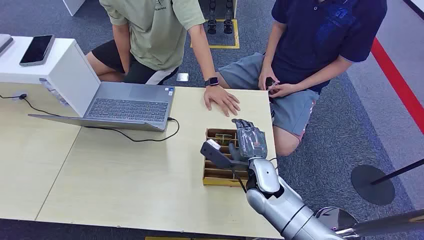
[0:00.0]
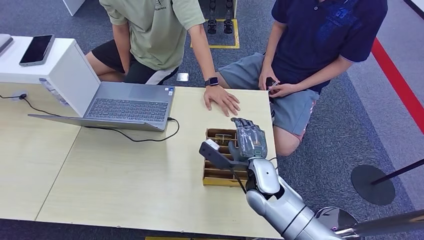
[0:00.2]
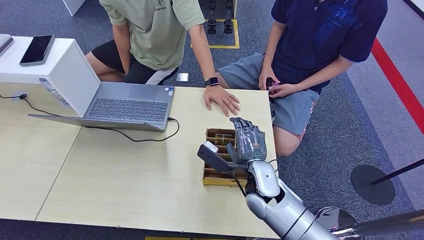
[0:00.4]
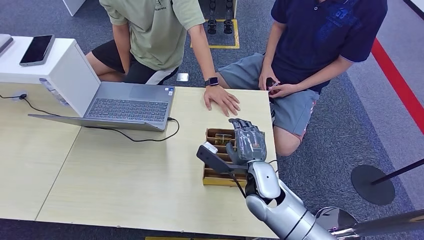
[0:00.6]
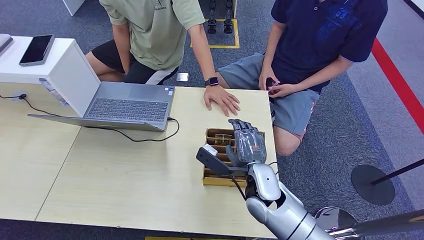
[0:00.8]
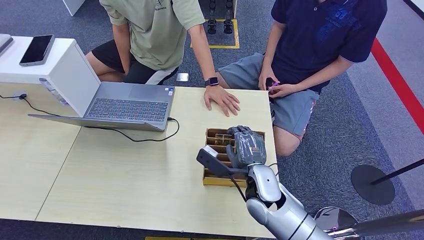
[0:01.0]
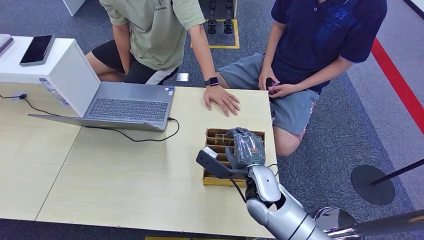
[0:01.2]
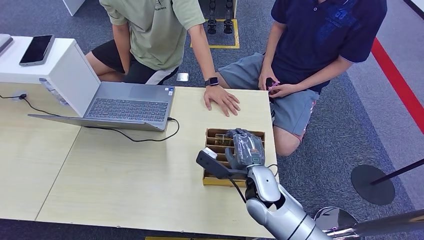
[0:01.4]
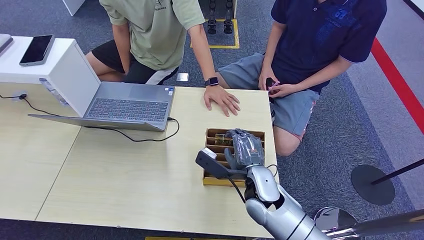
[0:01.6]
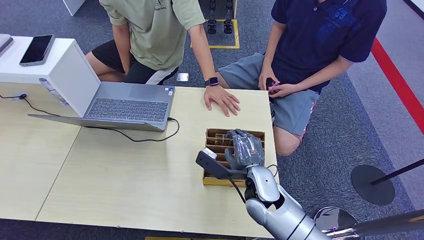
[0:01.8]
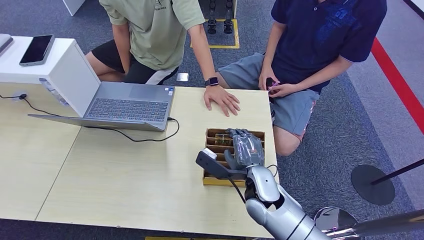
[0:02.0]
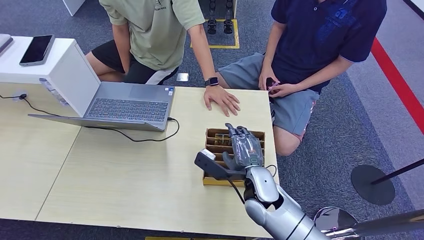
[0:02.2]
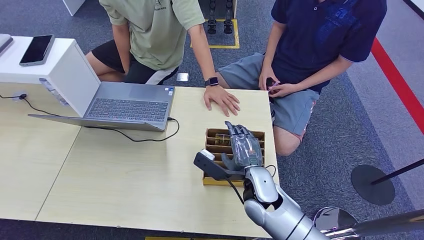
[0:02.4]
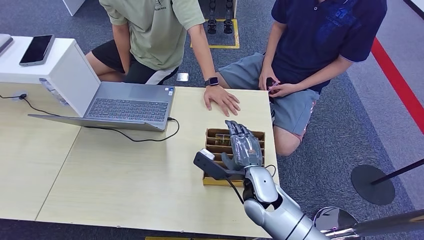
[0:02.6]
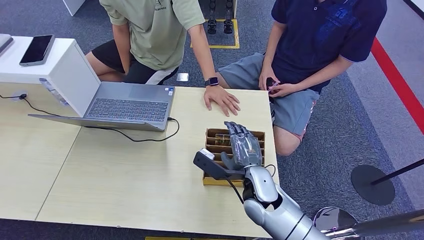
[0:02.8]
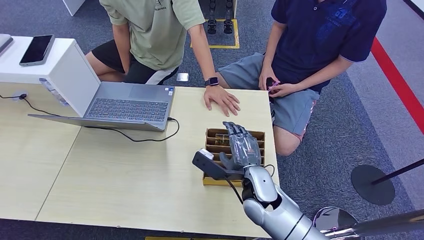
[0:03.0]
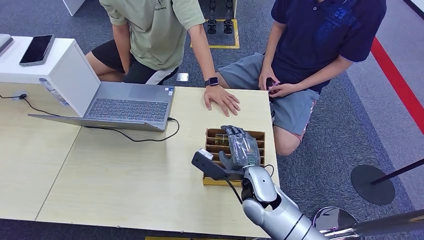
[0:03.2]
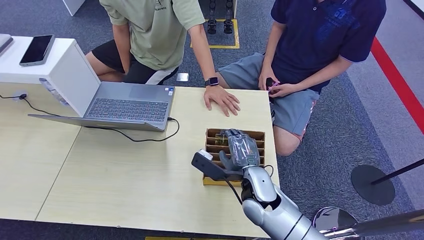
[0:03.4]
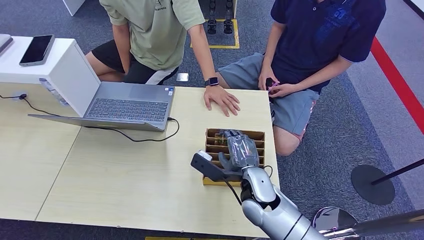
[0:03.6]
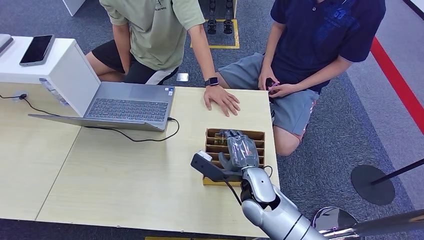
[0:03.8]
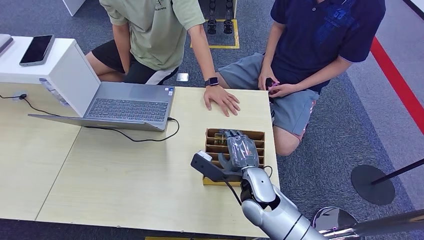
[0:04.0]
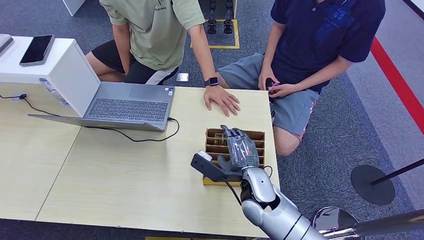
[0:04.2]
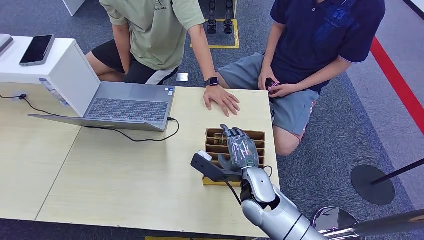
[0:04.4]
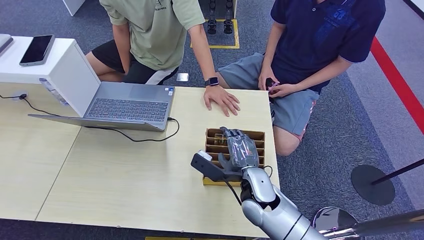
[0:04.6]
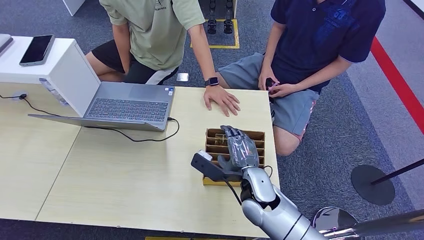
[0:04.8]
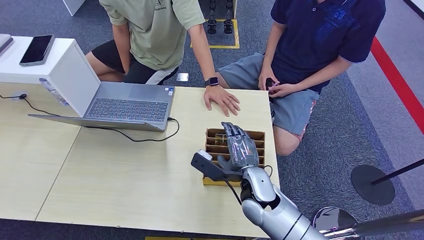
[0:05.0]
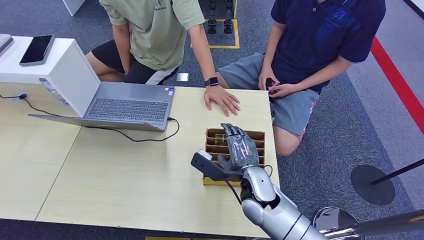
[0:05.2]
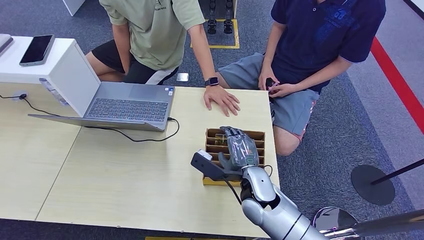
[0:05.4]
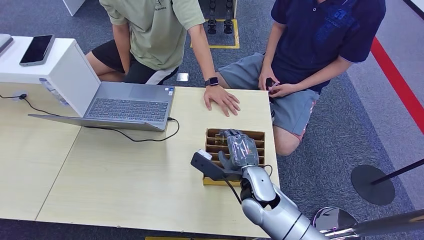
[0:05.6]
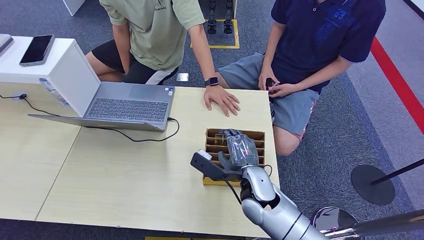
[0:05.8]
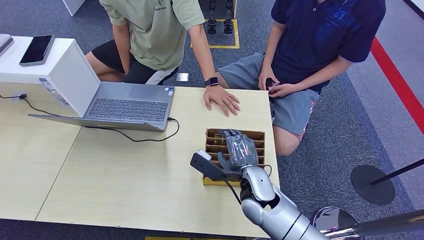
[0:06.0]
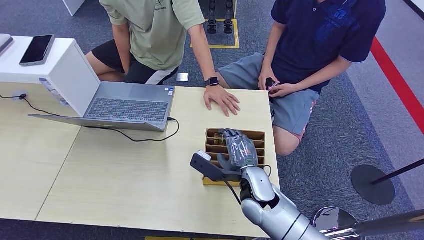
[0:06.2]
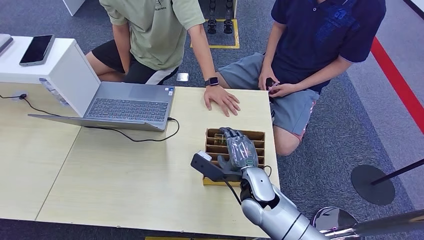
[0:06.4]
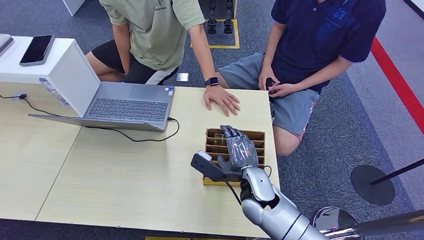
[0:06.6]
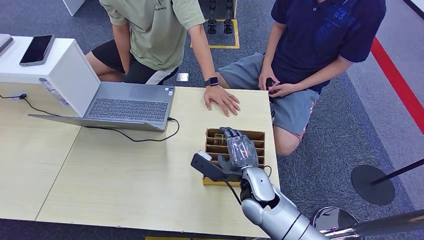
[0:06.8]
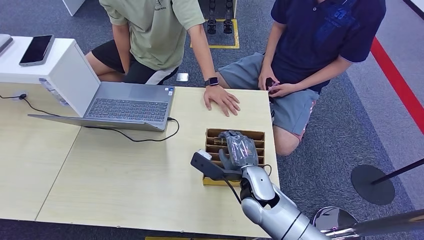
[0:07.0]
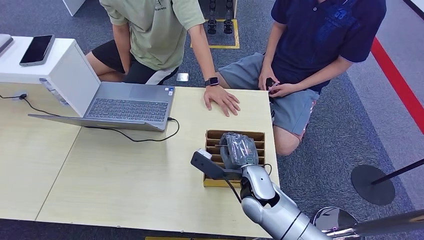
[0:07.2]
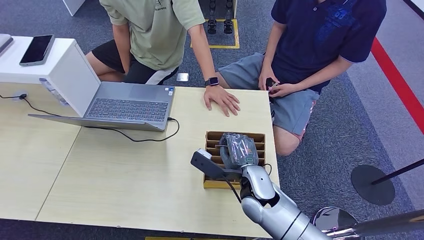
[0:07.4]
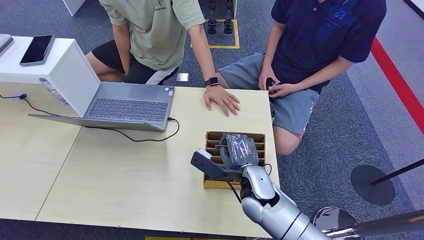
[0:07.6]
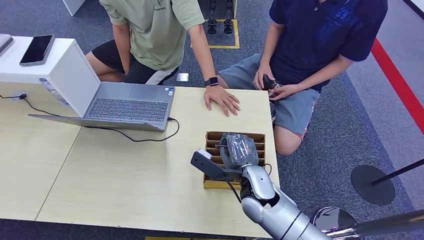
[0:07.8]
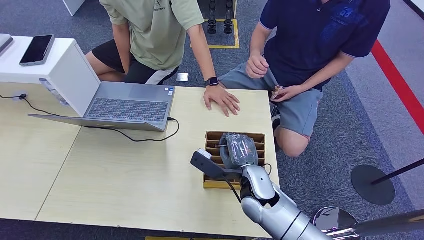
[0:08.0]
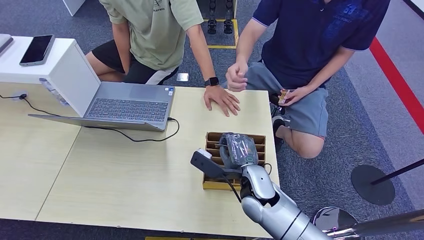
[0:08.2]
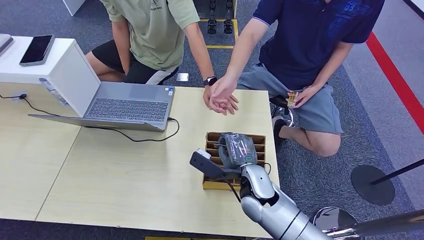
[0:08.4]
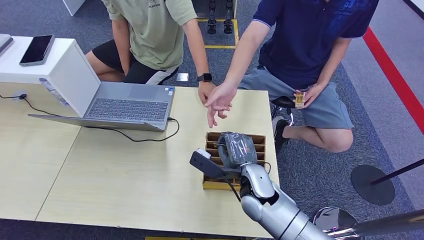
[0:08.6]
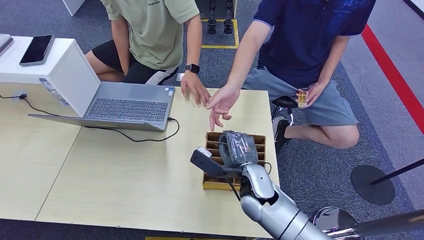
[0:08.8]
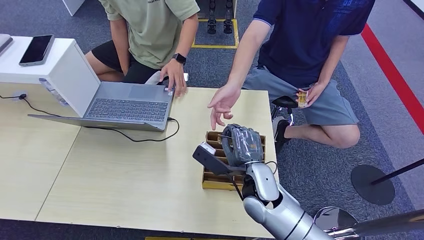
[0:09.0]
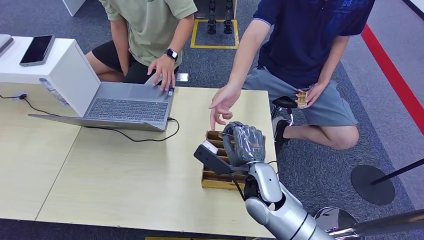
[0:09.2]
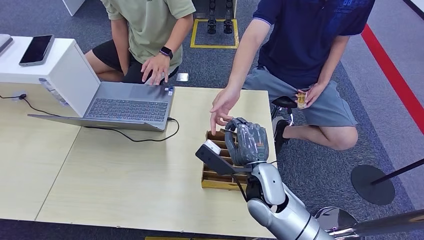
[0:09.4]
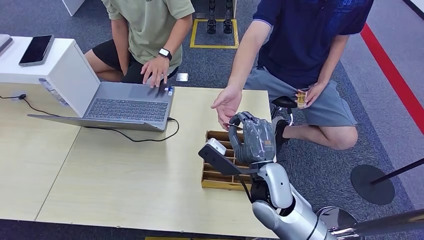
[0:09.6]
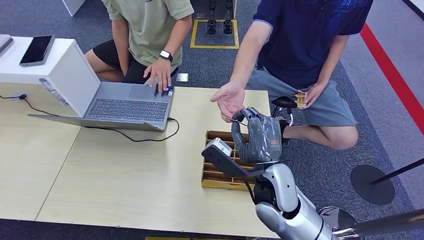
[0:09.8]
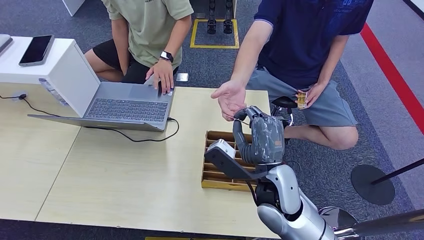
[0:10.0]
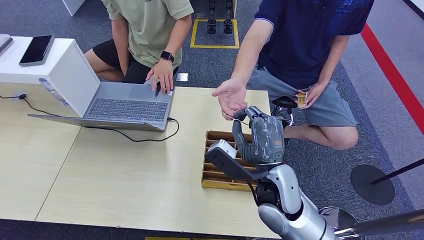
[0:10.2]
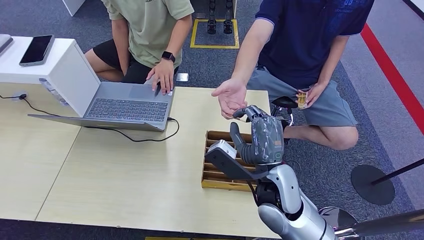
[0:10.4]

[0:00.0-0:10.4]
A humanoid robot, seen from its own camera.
Step, 0:00.0 to 0:10.2: Pick up the room card from the card holder.
0:01.4 to 0:07.4: Both hands stay put.
0:07.4 to 0:09.0: The right hand shifts roughly 5 cm upward.
0:09.0 to 0:10.4: The hands stay close to where they were, moving slightly.
